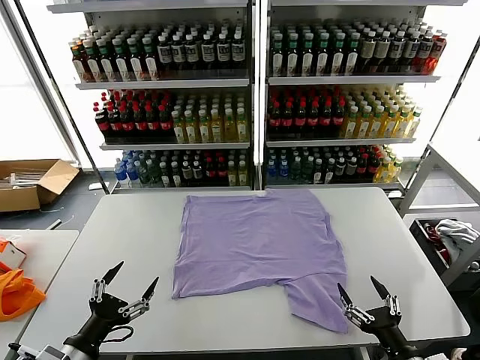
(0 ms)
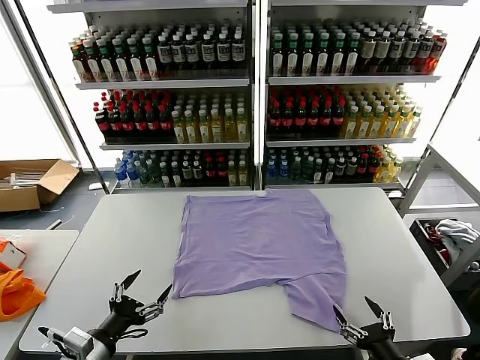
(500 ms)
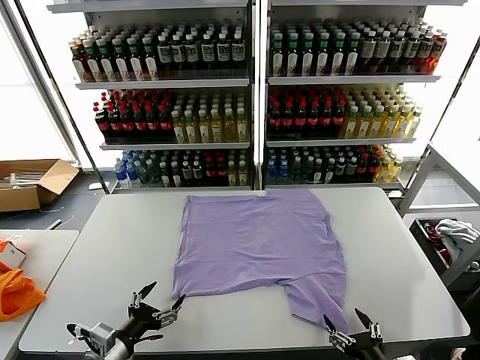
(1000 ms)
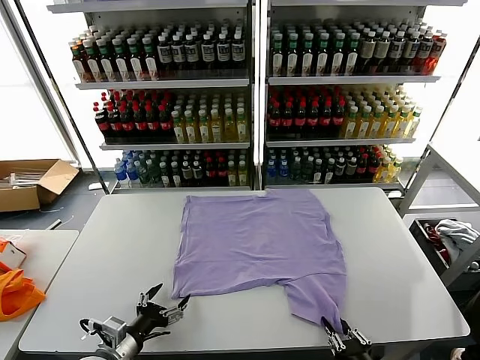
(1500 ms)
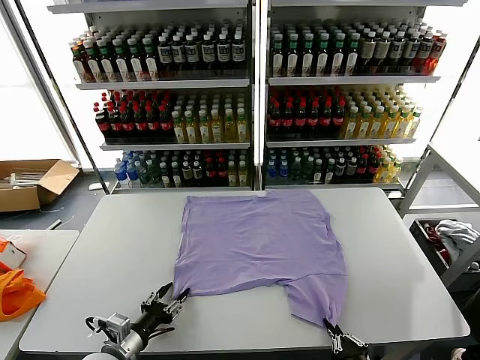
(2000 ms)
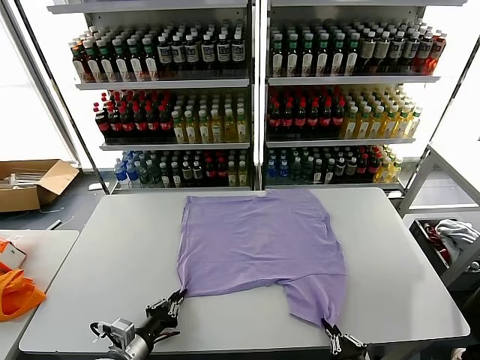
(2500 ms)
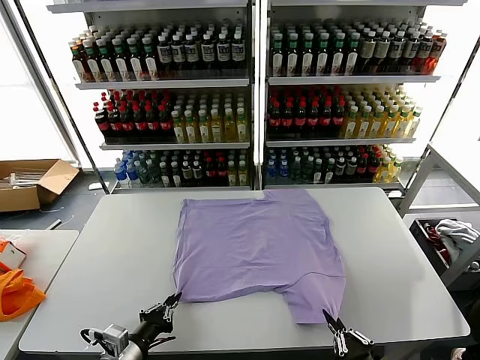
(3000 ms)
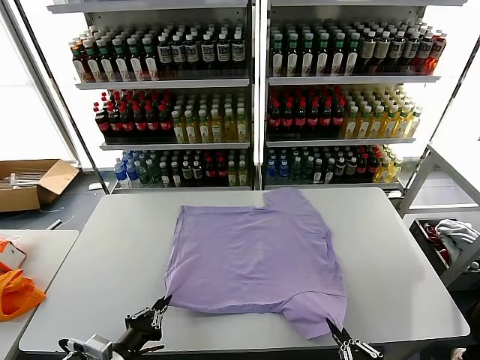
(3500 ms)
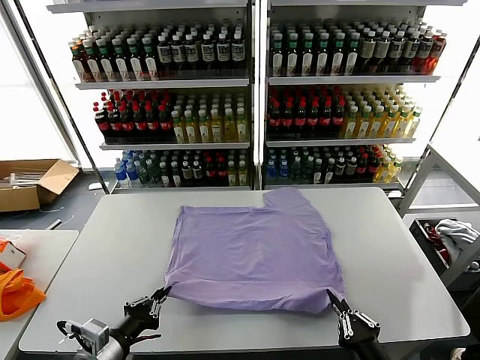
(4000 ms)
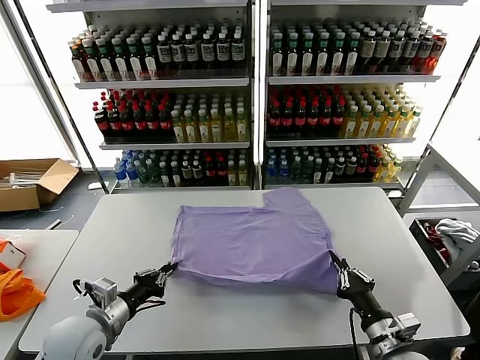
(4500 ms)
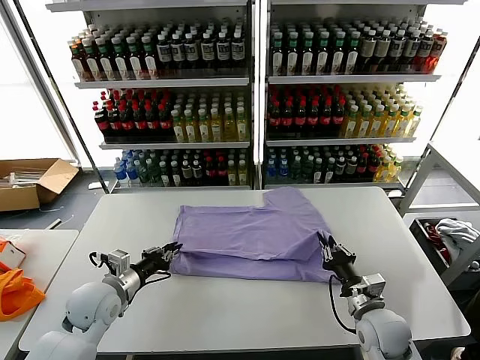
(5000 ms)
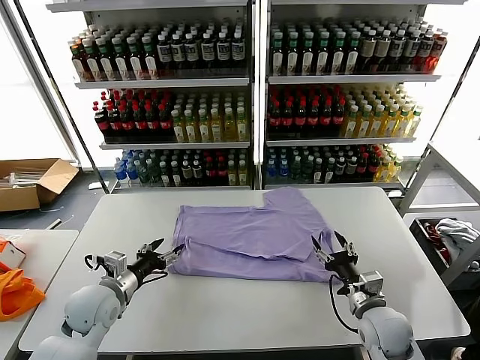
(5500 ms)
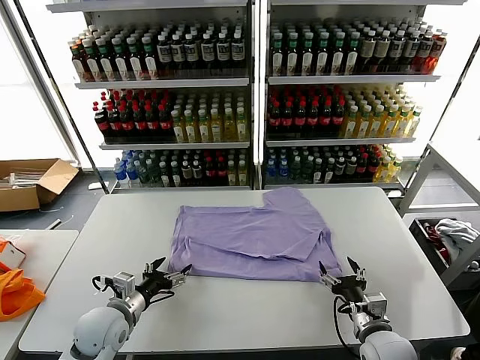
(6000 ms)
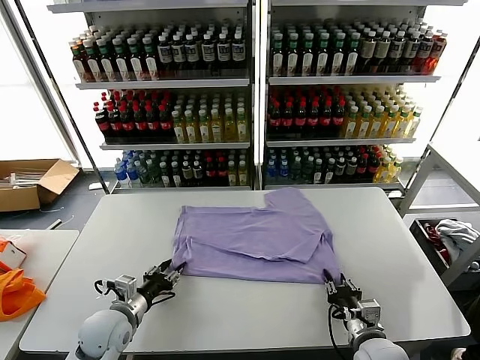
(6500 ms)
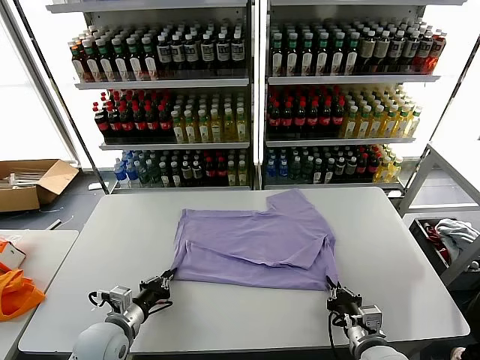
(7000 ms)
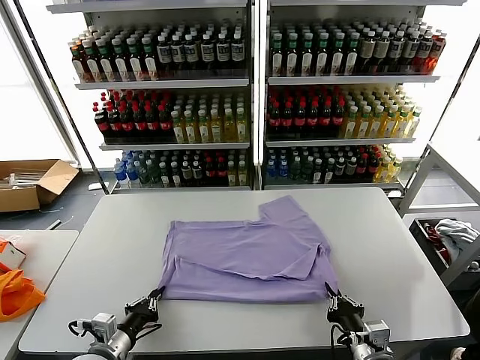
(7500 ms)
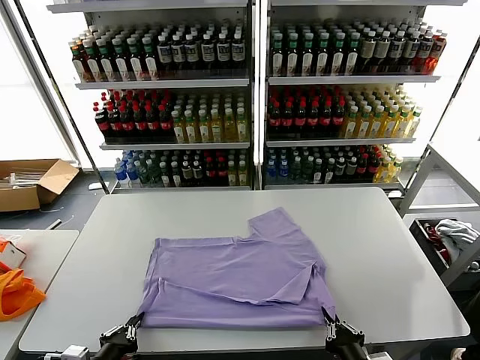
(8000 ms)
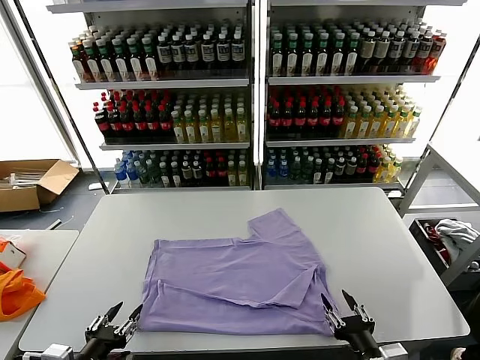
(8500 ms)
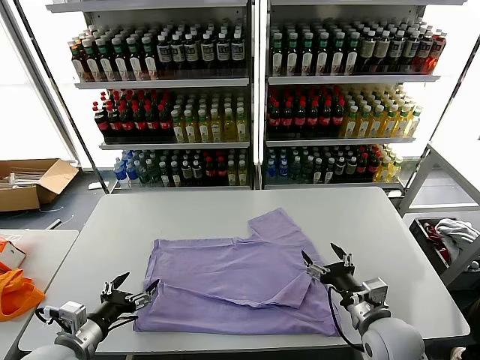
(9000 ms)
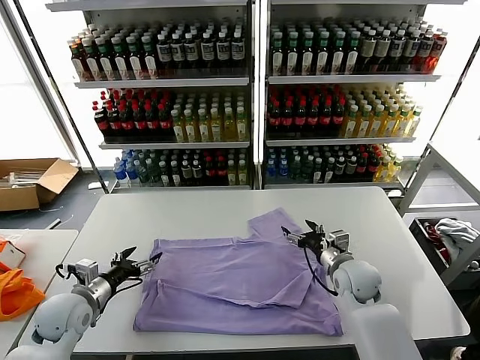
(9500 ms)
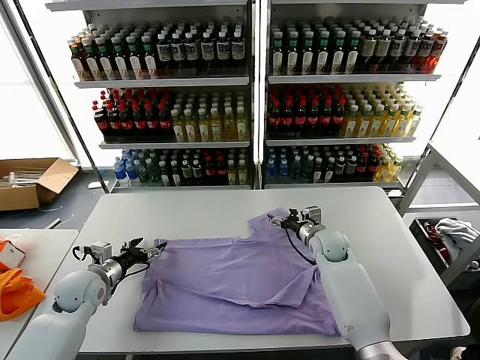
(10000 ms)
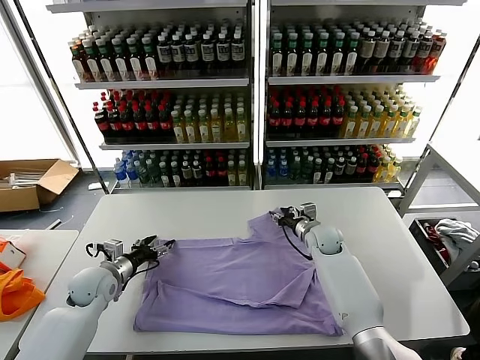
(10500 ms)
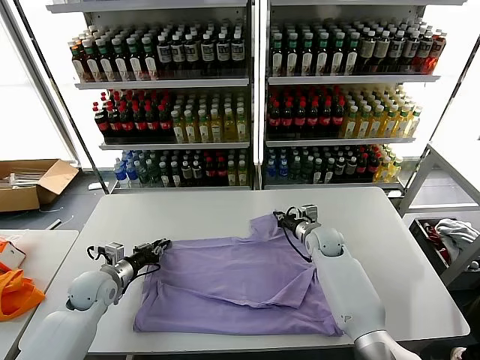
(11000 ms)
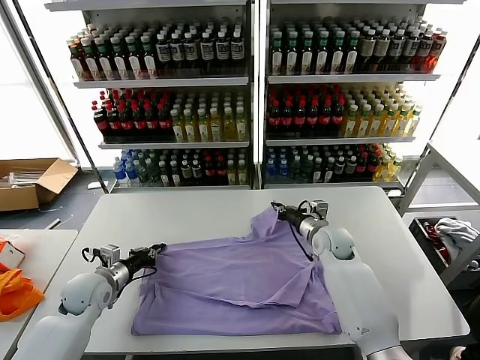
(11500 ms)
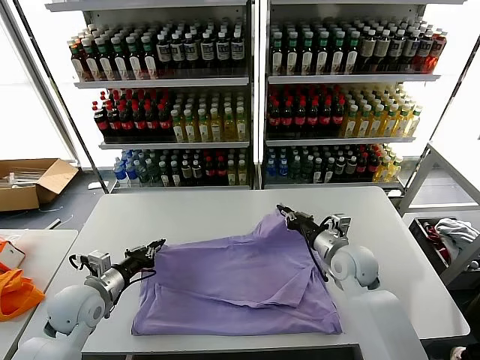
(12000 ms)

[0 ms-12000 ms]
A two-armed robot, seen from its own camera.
Task of the whole recording: fold and organize the clothes.
Step, 0 ms to 2500 ms: use both grippers simultaneously to clamp the lower edge of the clothing fabric.
Step, 3000 ms to 5000 ms: use both grippers to drag the lower edge of the fabric forward and fold it over the upper edge.
Step, 5500 ms to 8000 ms: Drag the clothes downward with both gripper.
Step, 8500 ms to 11000 ms: use both grippers simultaneously to clamp the upper edge of the clothing fabric.
2000 ms to 4000 ms: The left gripper heads upward, covering about 10 cm, and closes its fingers.
4000 ms to 6000 ms: The grippers both shift forward by roughly 10 cm. The right gripper opens its fingers. Meanwhile the left gripper opens its fingers.
6000 ms to 8000 ms: Both grippers move backward, about 15 cm. The left gripper closes up. Meanwhile the right gripper closes.
8000 ms to 10000 ms: The right gripper heads forward, covering approximately 40 cm, and opens, while the left gripper is displaced forward by approximately 25 cm, and opens up.
10000 ms to 12000 ms: The right gripper shifts about 10 cm backward and upward, and closes its fingers, while the left gripper shifts by about 5 cm, and closes up.

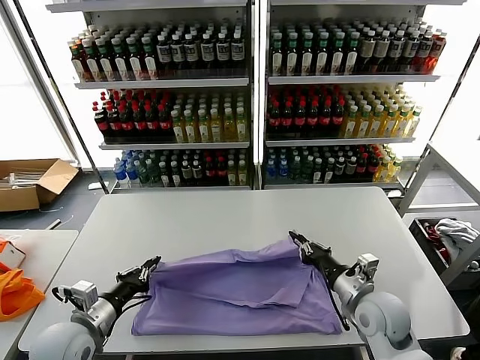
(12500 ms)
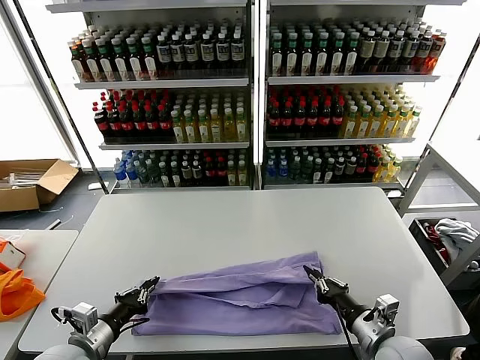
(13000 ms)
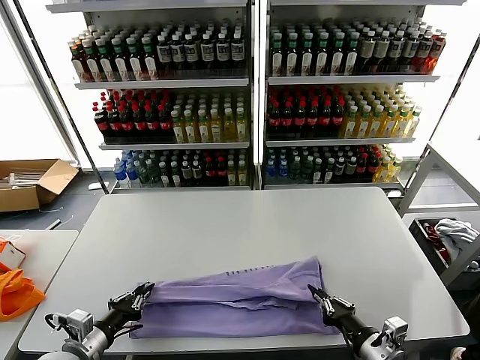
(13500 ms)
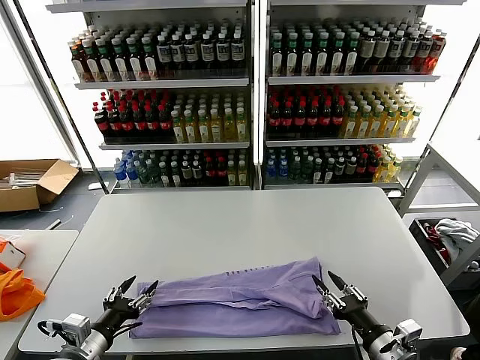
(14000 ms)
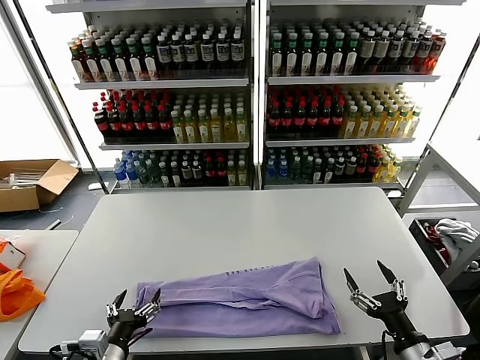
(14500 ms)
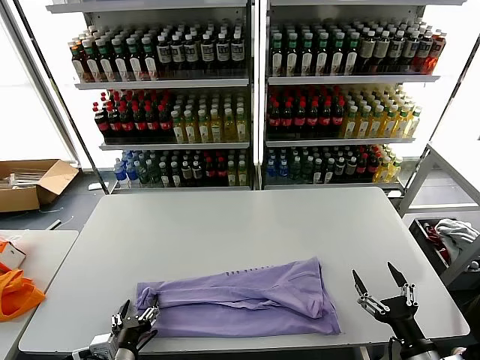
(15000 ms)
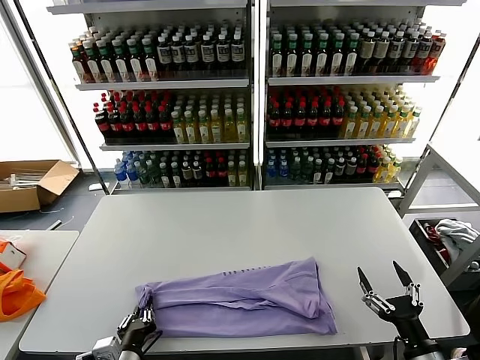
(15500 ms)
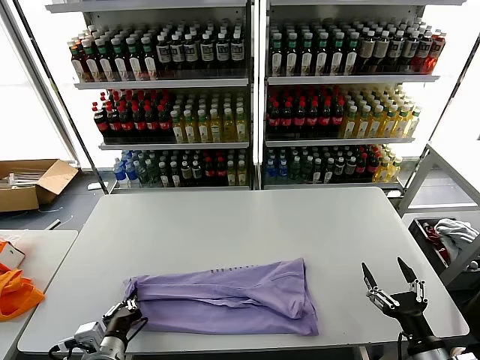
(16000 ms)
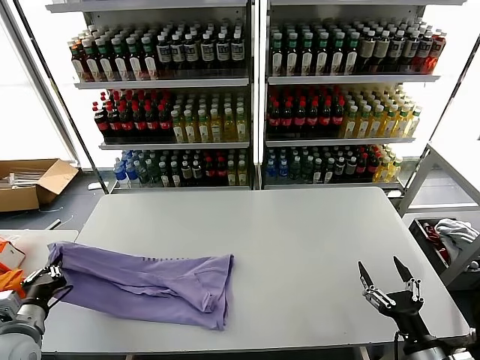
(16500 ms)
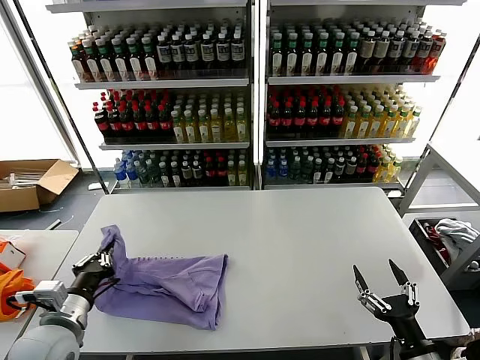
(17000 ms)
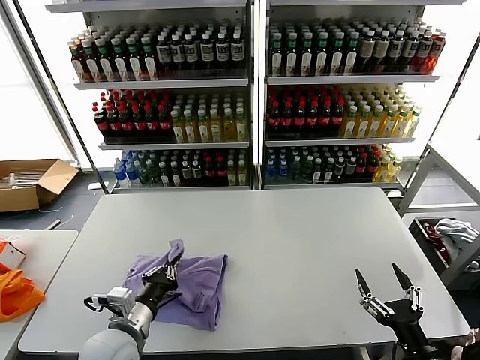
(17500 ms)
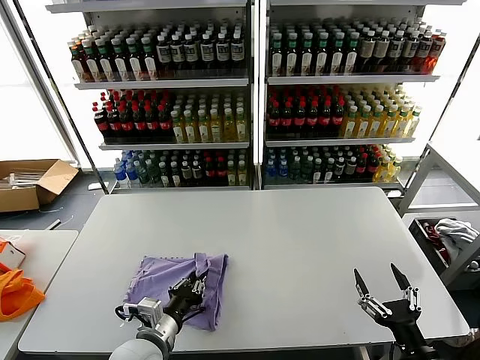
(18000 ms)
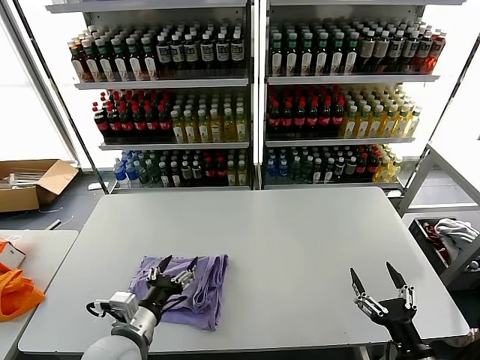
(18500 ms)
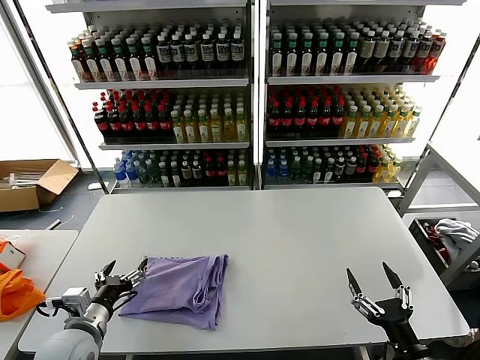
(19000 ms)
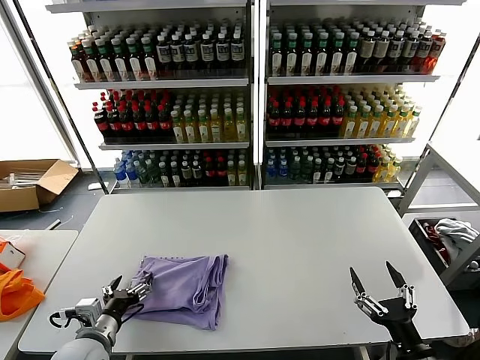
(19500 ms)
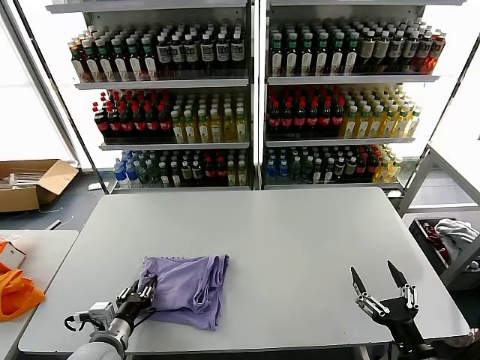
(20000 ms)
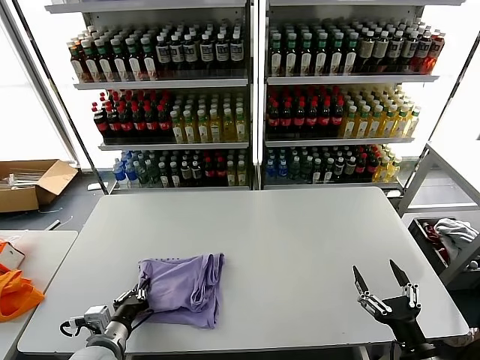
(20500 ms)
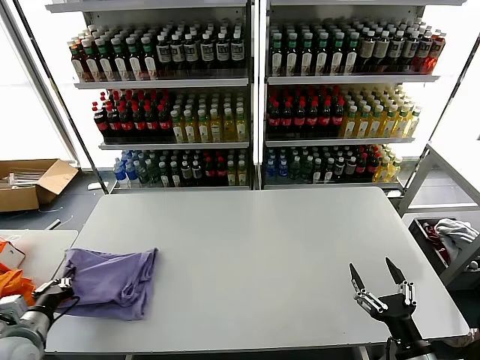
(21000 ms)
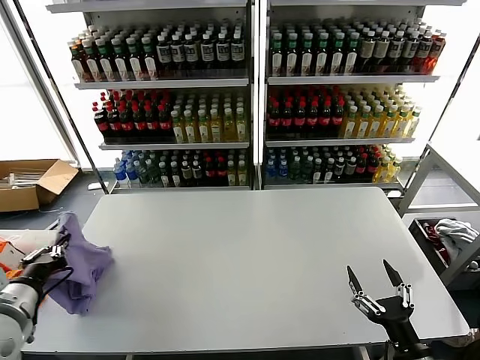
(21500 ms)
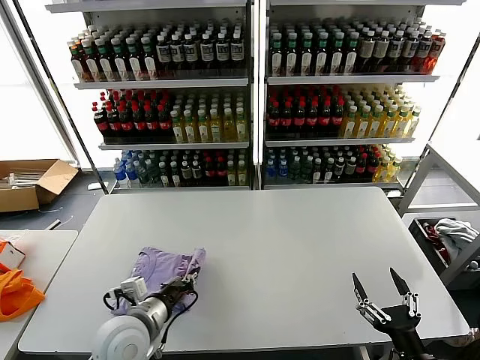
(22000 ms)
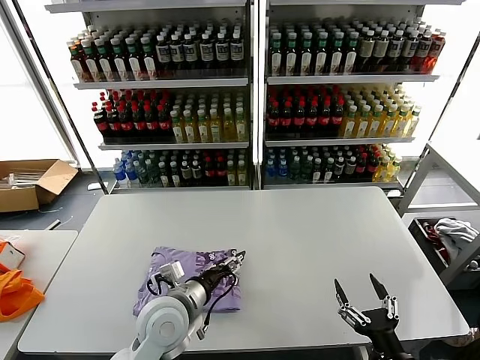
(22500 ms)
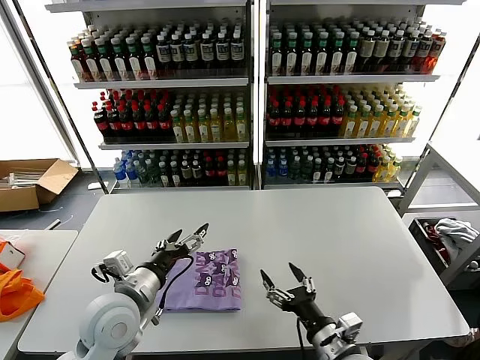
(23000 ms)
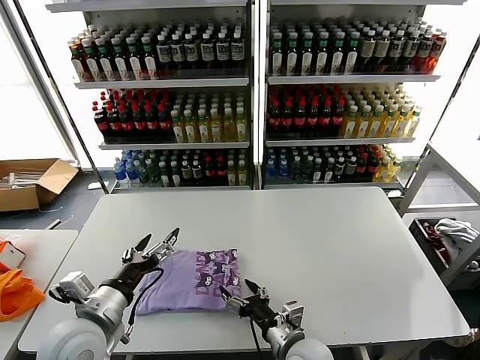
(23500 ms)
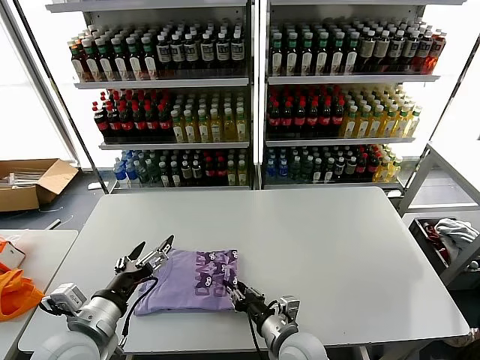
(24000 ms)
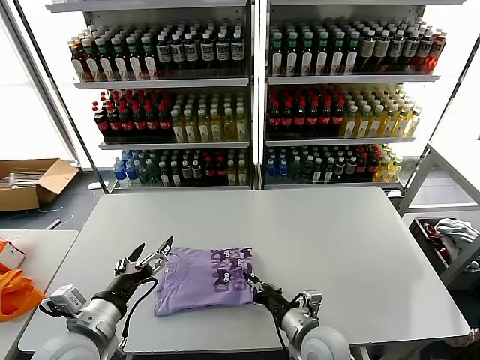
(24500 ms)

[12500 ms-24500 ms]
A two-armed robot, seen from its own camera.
Task of the whole recording: fold and organize the clothes.
Step, 14000 ms to 15500 ms: use the left gripper to clamp the left edge of the fabric.
Step, 16000 ms to 18000 ms: use the left gripper to drag the left edge of the fabric to the left and folds it over the right edge.
Step, 18500 ms to 22000 ms: Flip the folded clothes over with left gripper.
12500 ms to 14500 ms: The left gripper moves backward and to the right, roughly 10 cm, and opens. Meanwhile the right gripper shifts approximately 15 cm backward and to the right, and opens up.
14500 ms to 16500 ms: The left gripper moves to the left, some 15 cm, and closes.
16500 ms to 18500 ms: The left gripper is displaced to the right by approximately 20 cm, and opens.
18500 ms to 20500 ms: The left gripper shifts about 10 cm to the left and downward, and closes.
20500 ms to 22500 ms: The left gripper moves to the right, upward and forward, approximately 15 cm, and opens up.
22500 ms to 24500 ms: The left gripper travels to the left and backward by about 15 cm, and opens up; the right gripper is displaced to the left and forward by about 20 cm, and closes up.

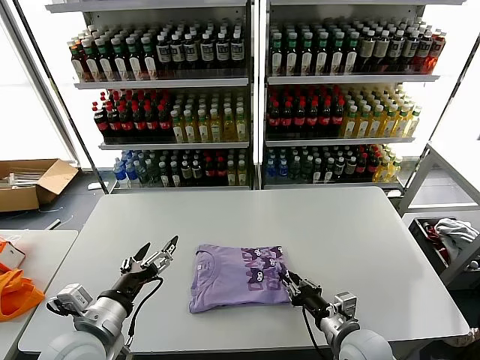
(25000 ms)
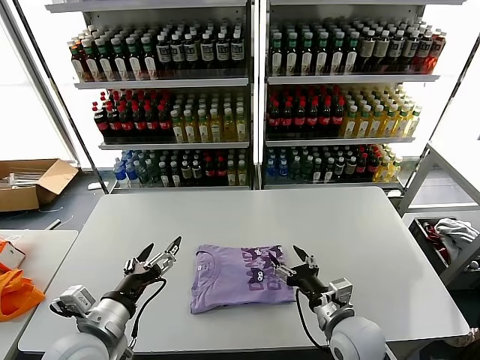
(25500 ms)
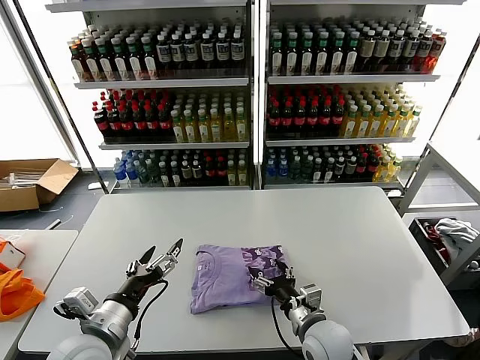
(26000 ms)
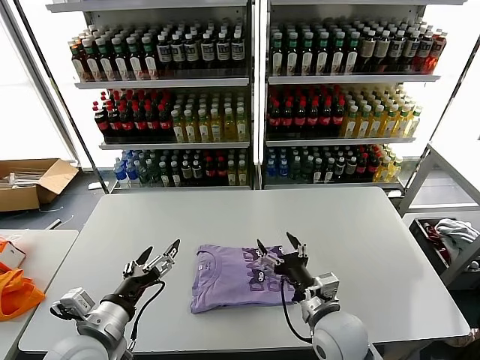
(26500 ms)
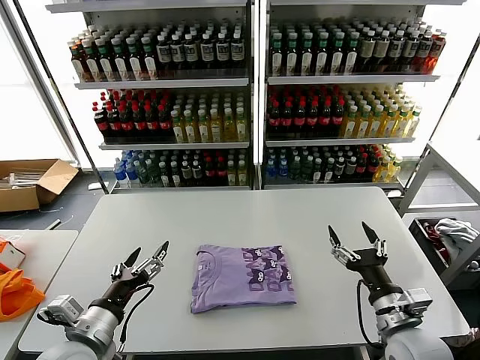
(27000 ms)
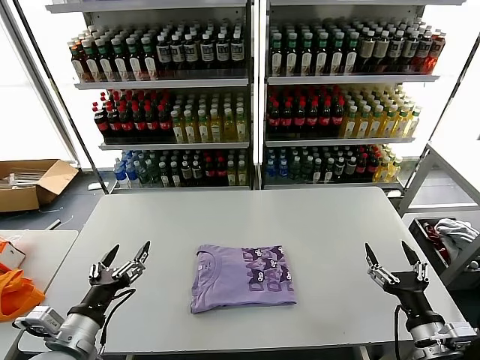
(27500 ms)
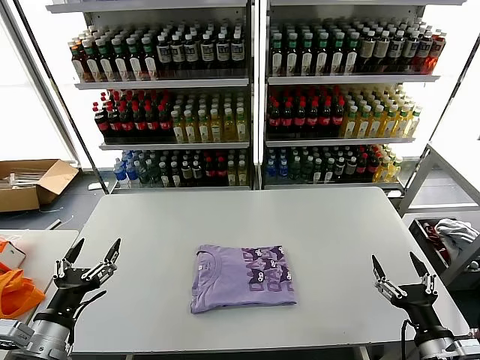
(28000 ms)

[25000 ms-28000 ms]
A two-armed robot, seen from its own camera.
Task of the whole recording: fold and organize the clothes.
25000 ms to 26500 ms: The right gripper heads to the left, covering roughly 5 cm, and opens up.
26500 ms to 28000 ms: The right gripper travels to the right and backward by some 20 cm. The left gripper goes about 10 cm to the left.
